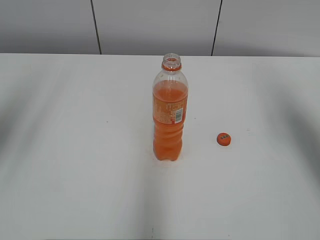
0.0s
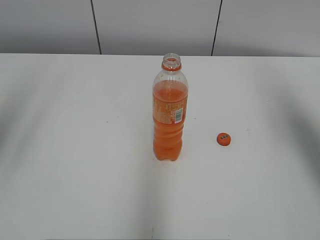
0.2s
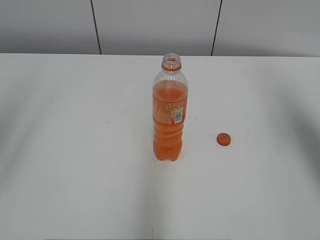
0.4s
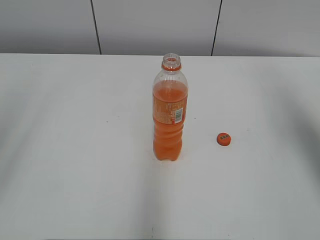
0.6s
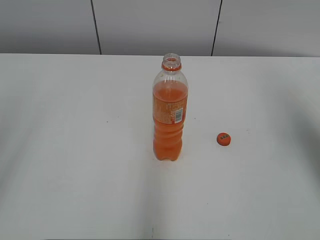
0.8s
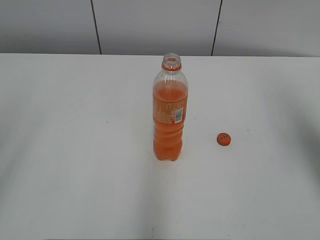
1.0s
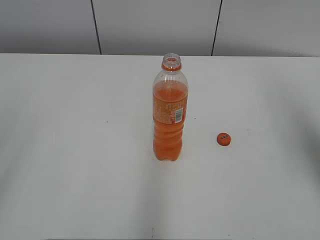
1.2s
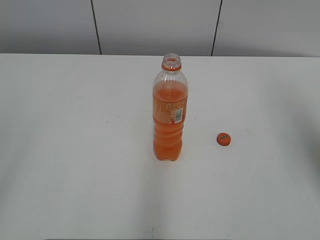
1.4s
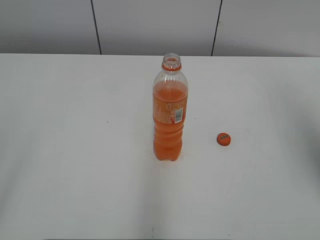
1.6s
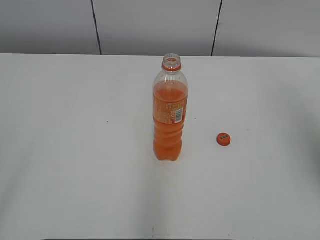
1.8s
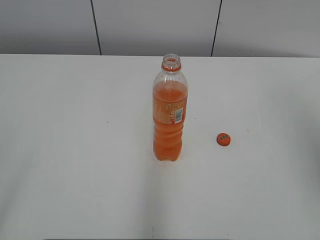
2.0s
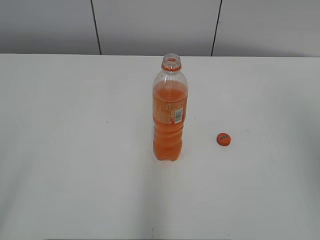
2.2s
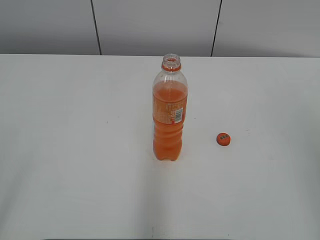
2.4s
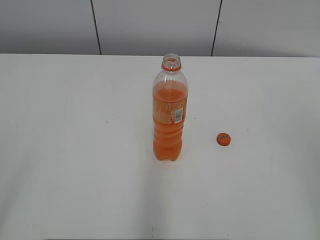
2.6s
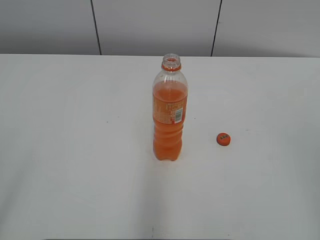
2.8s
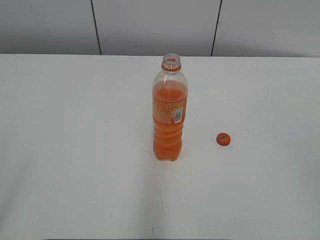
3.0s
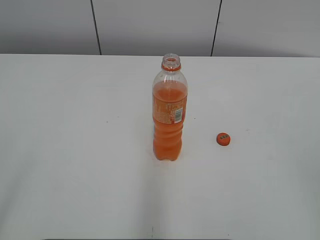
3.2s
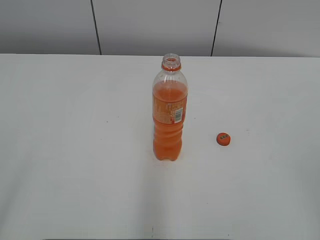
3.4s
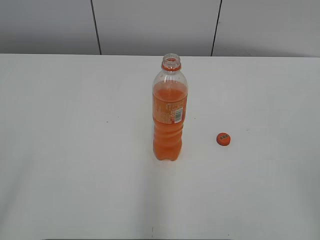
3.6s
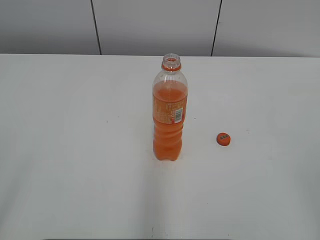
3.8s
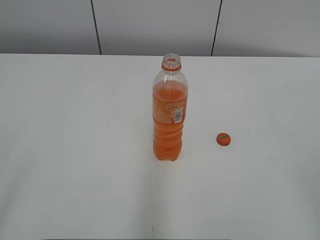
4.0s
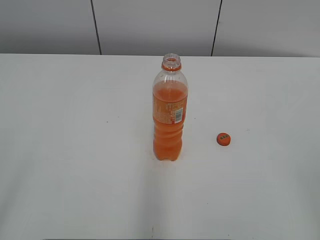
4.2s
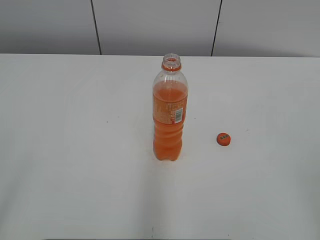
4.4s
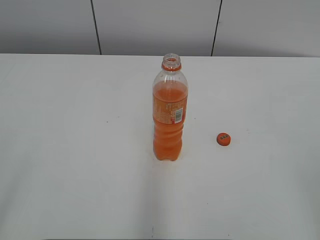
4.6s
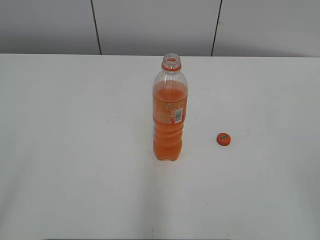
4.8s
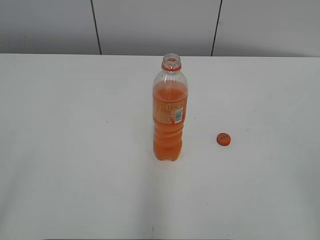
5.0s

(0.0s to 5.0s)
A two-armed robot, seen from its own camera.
0.0s - 1.6s: The left gripper travels backward by about 20 cm.
1.6s - 3.4s: The right gripper travels backward by about 20 cm.

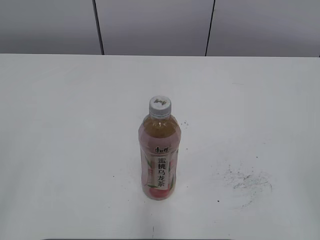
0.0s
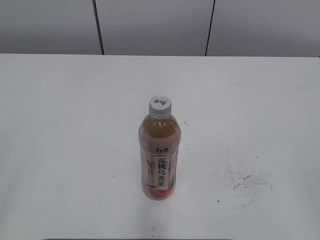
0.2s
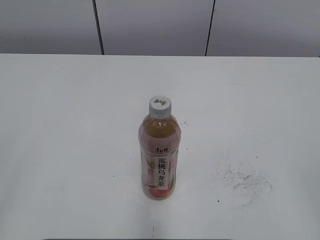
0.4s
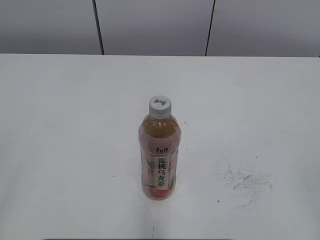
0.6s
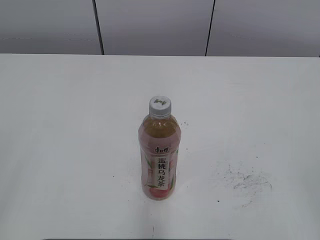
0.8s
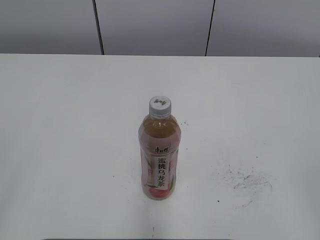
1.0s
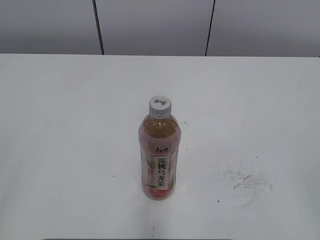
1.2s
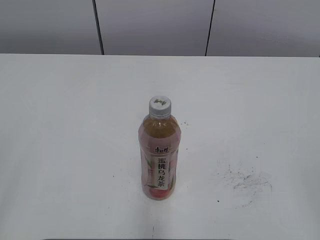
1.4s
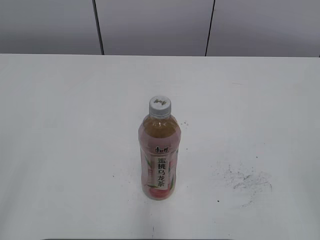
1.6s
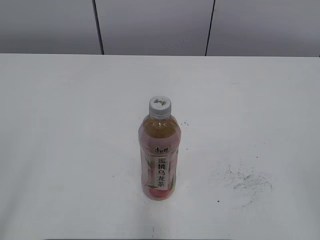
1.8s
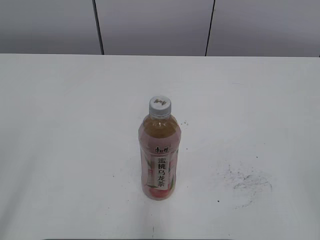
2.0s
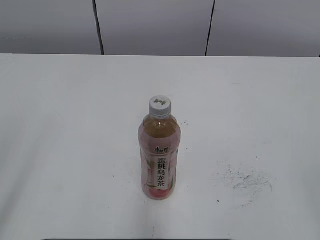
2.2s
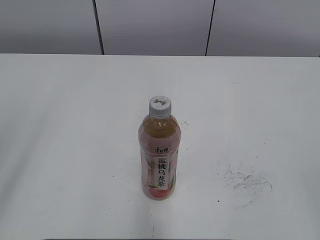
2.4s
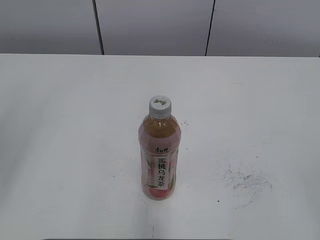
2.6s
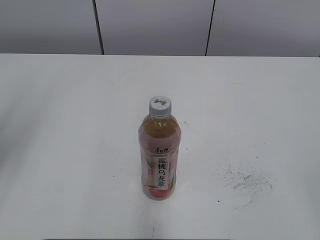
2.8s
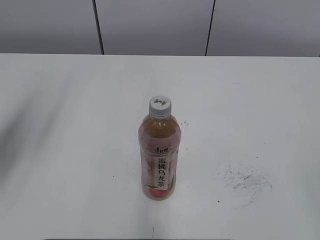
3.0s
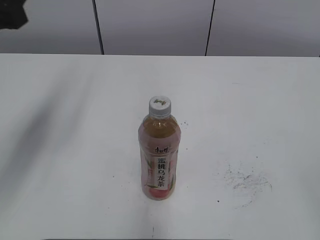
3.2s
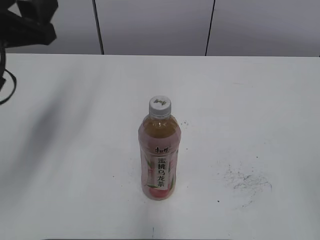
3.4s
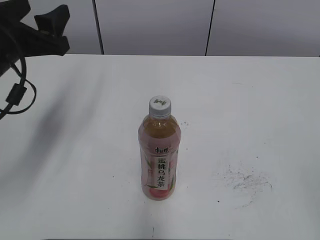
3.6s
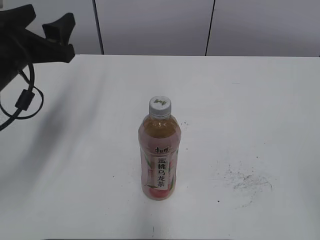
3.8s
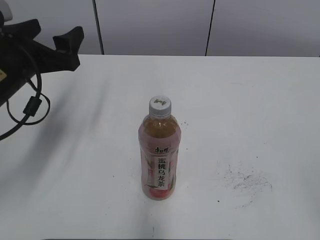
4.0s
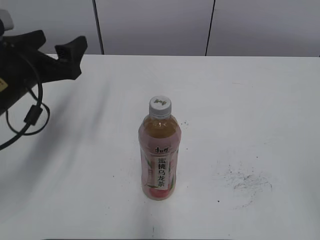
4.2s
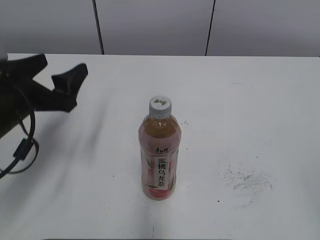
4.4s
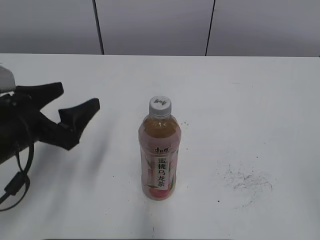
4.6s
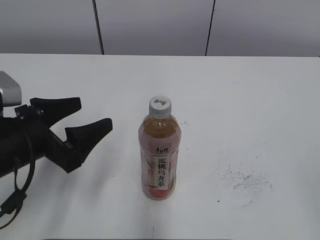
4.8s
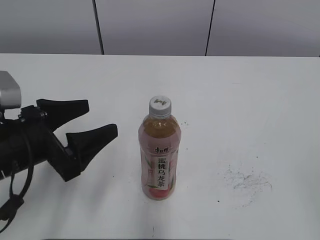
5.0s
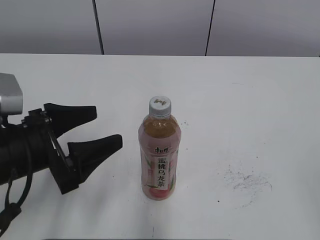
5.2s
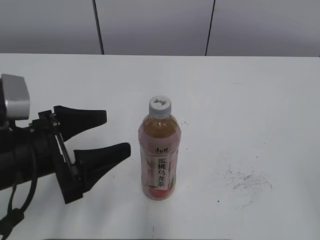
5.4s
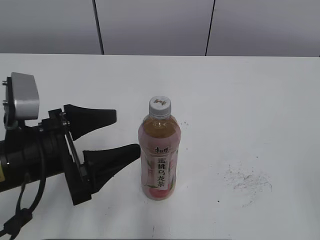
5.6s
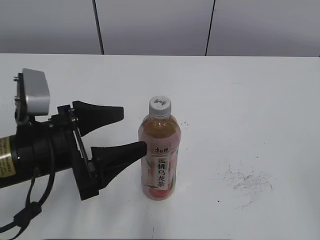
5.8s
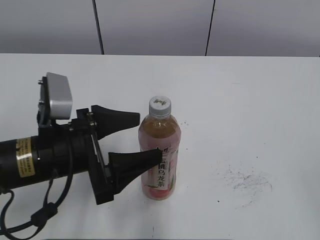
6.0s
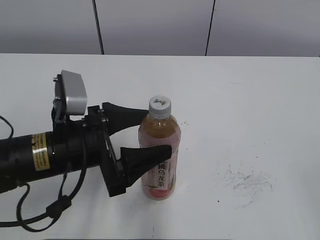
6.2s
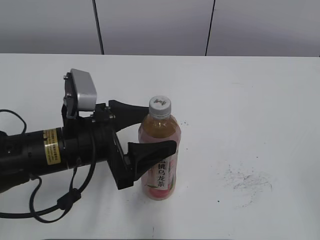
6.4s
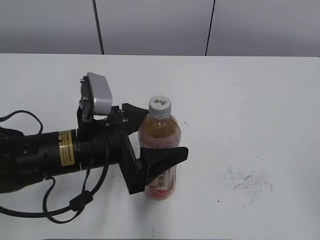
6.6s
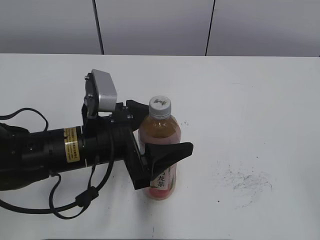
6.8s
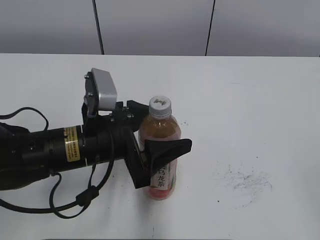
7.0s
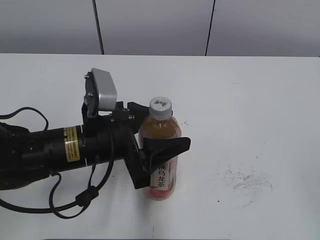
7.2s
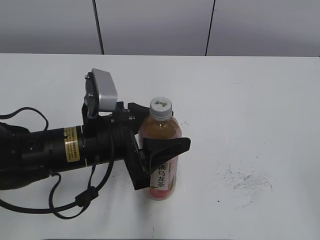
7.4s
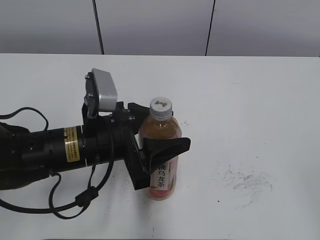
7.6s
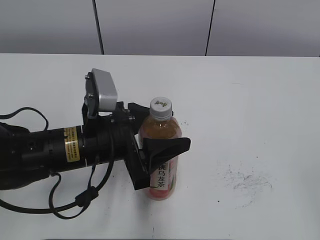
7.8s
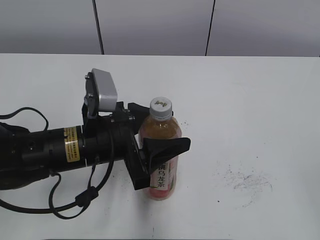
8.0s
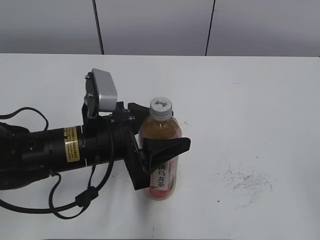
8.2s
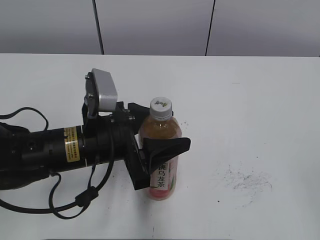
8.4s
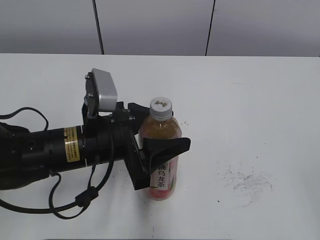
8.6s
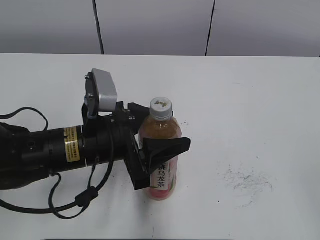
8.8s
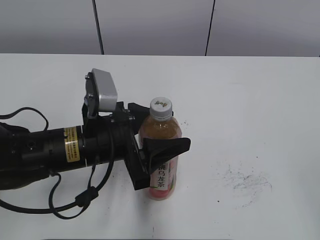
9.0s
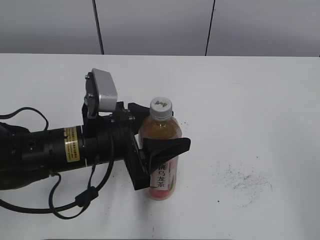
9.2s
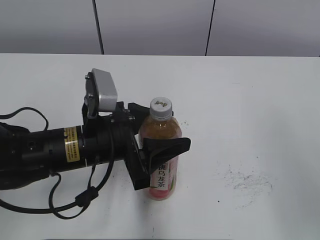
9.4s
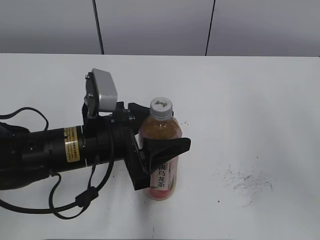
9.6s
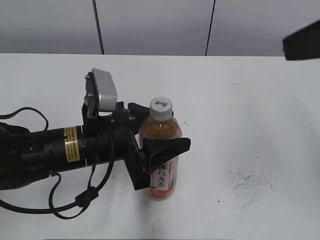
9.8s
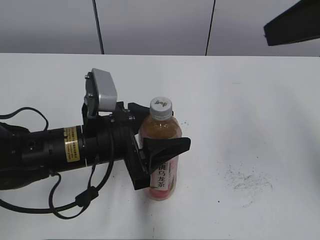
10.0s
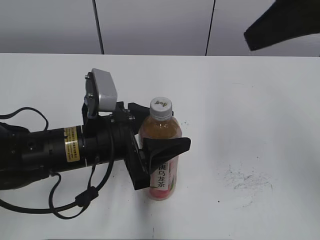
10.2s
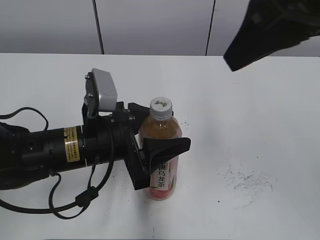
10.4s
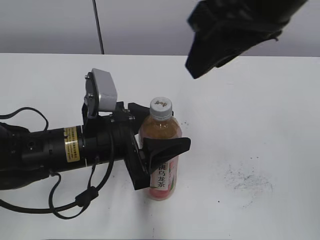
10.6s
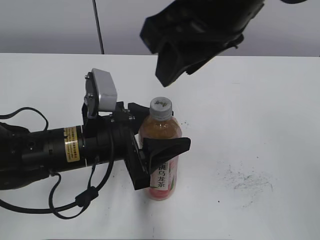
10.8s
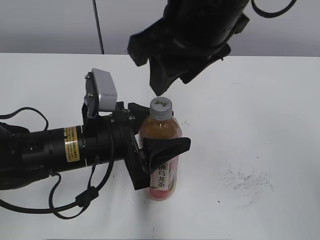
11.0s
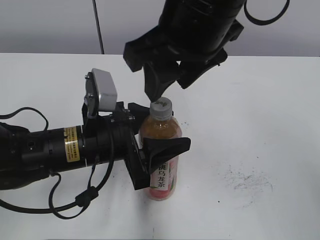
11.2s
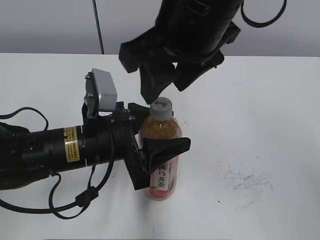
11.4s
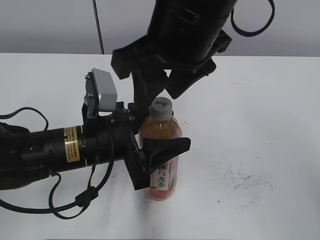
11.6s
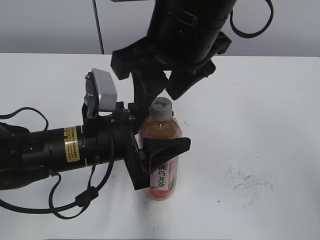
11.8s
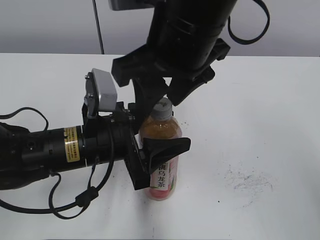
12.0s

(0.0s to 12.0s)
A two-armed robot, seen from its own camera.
Step, 0.0s - 7.8s: Grasp the bottle and move it to the center of the table with the left gripper.
1.6s - 3.0s: The left gripper travels forward by some 20 cm.
3.0s - 4.4s: The left gripper is displaced downward, to the right and forward by some 15 cm, and opens.
4.4s - 6.0s: The left gripper shifts approximately 10 cm to the right and backward.
6.0s - 7.6s: The left gripper changes place by some 5 cm, and closes its fingers.
7.6s - 9.0s: The two grippers keep their place.
9.0s - 10.4s: The right gripper goes approximately 30 cm forward, to the left and upward, and closes its fingers.
10.4s - 12.0s: The right gripper is displaced to the left and downward by some 15 cm, and opens its fingers.

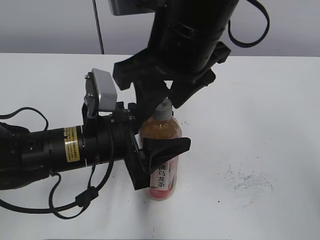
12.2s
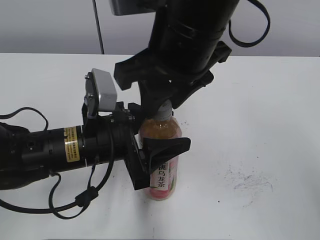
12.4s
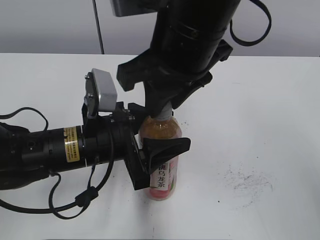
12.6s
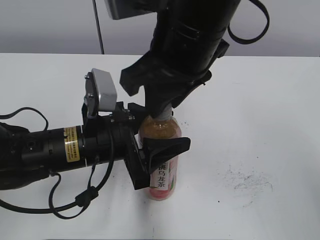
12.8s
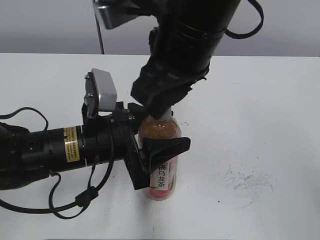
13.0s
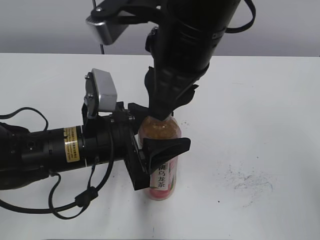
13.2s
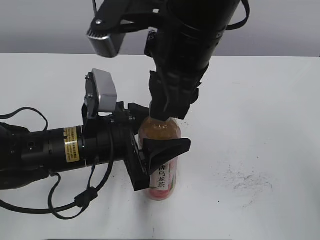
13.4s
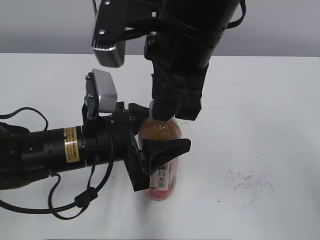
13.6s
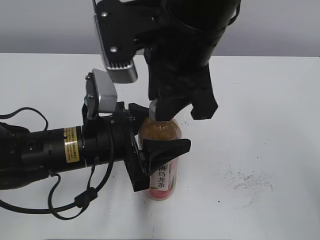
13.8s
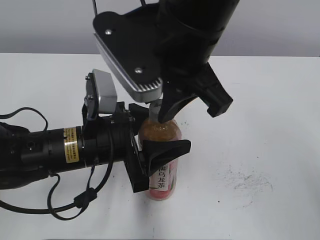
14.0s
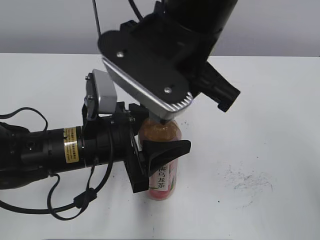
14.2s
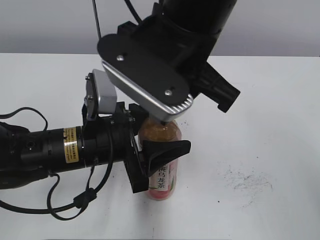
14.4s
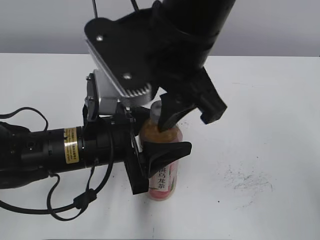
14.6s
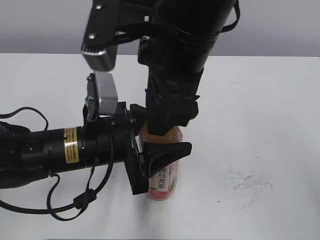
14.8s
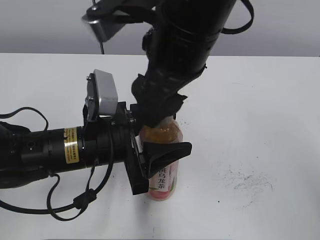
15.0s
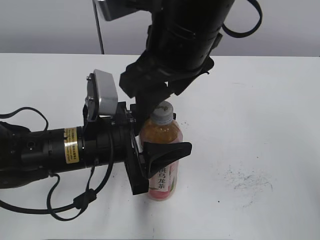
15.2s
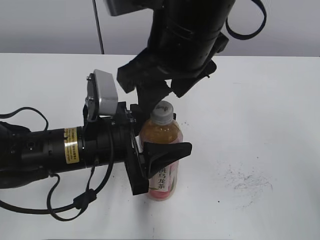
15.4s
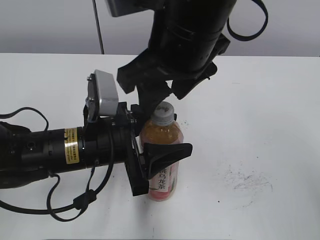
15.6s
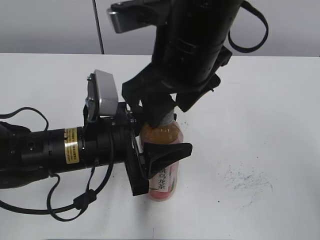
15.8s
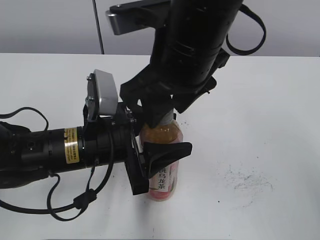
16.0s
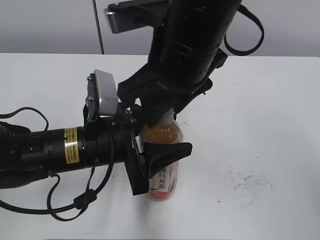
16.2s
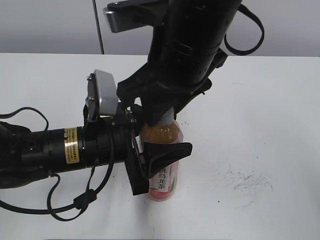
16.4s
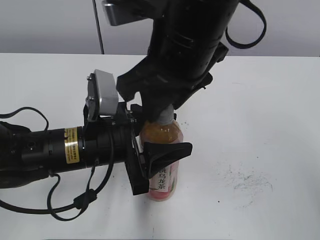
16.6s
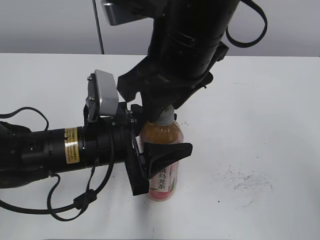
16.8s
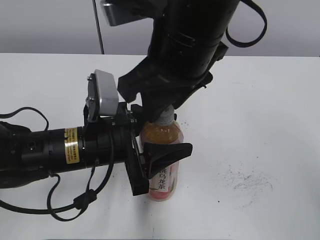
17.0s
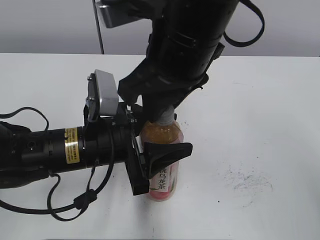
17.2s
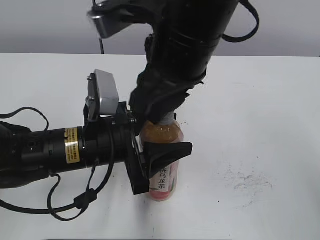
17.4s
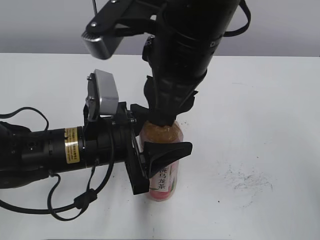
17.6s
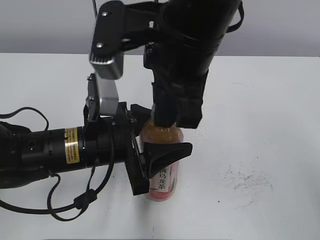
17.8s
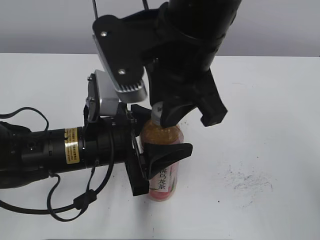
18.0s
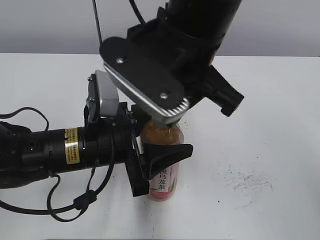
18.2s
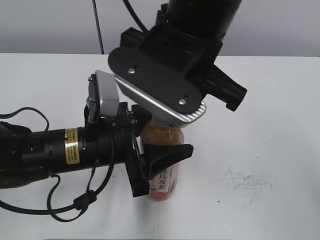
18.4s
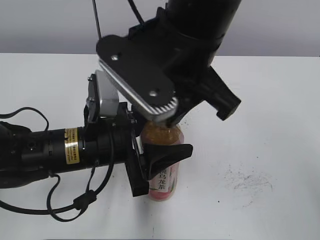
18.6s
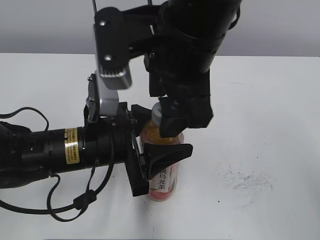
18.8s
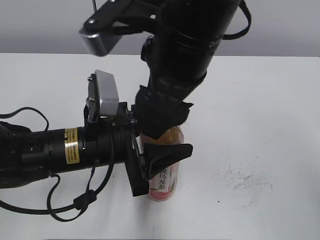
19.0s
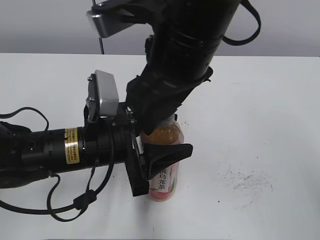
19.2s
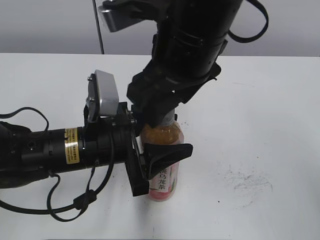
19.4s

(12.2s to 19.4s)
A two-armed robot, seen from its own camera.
12.2s - 13.6s: The right gripper closes.
13.6s - 15.0s: The right gripper opens.
15.0s - 16.6s: The right gripper closes its fingers.
18.0s - 19.4s: The right gripper opens up.
